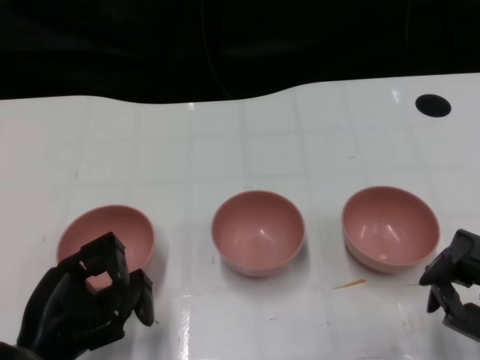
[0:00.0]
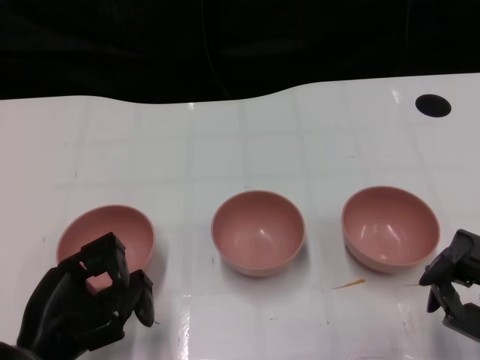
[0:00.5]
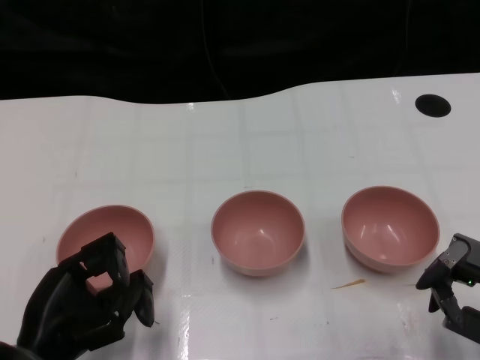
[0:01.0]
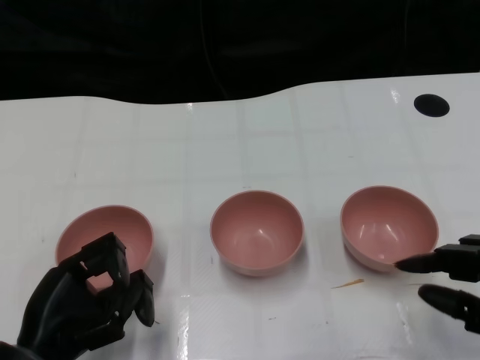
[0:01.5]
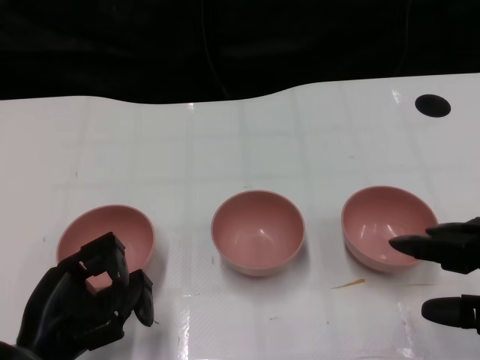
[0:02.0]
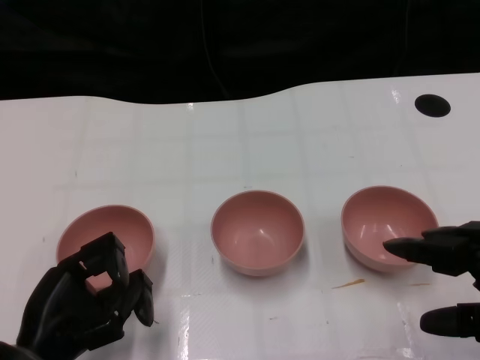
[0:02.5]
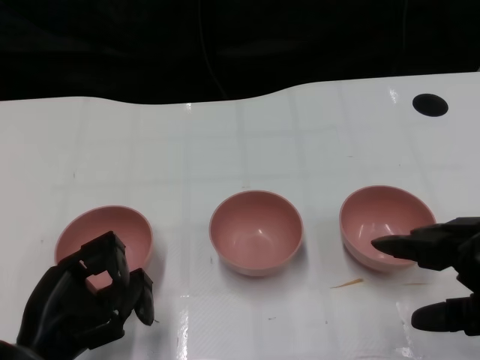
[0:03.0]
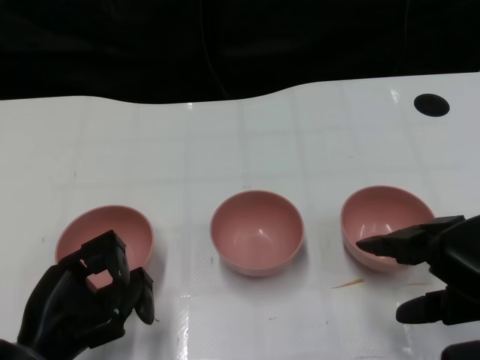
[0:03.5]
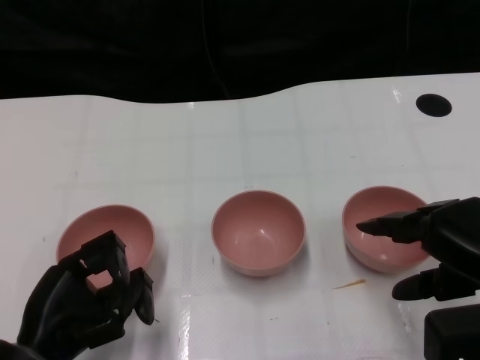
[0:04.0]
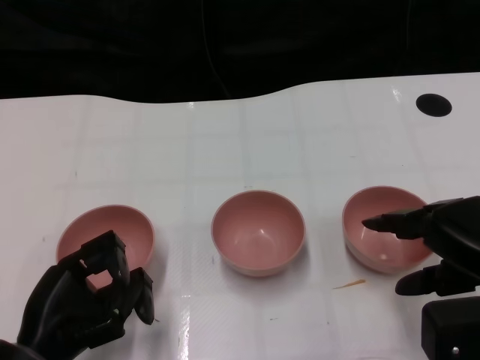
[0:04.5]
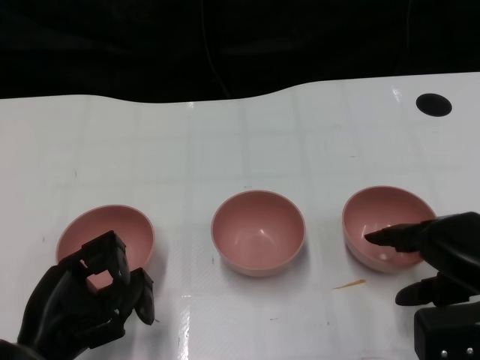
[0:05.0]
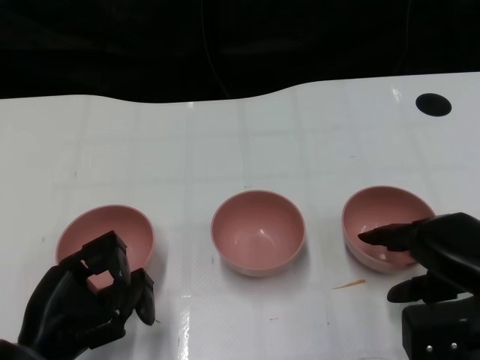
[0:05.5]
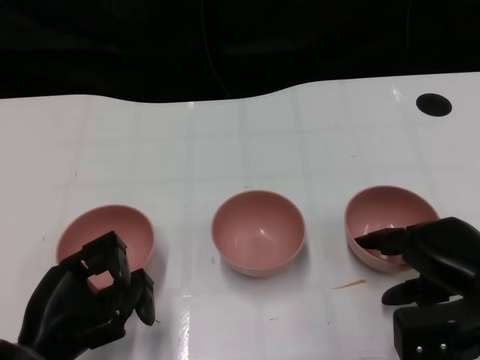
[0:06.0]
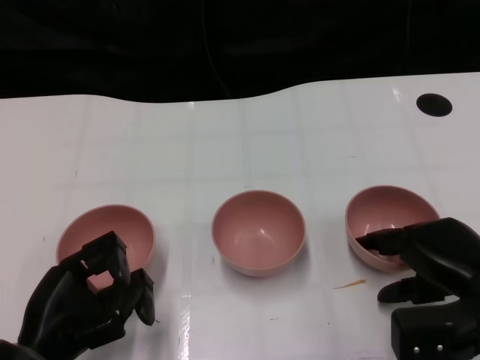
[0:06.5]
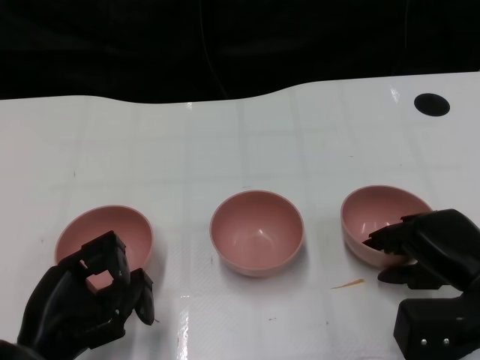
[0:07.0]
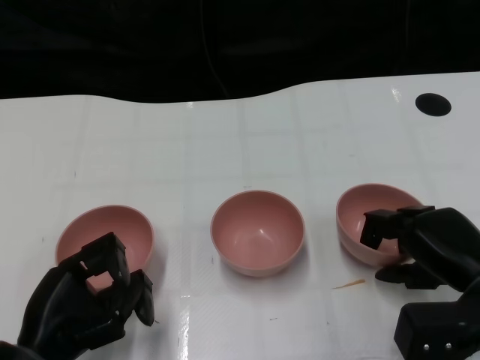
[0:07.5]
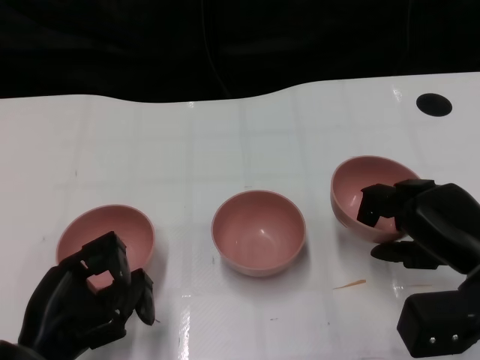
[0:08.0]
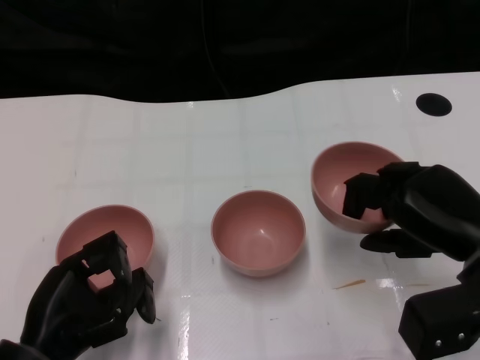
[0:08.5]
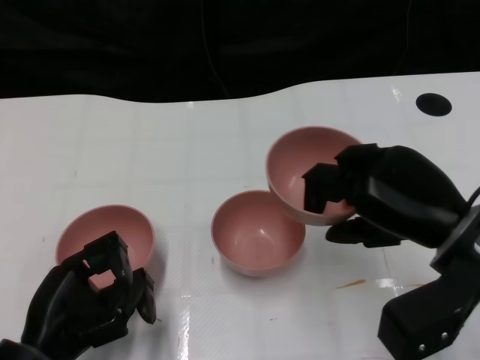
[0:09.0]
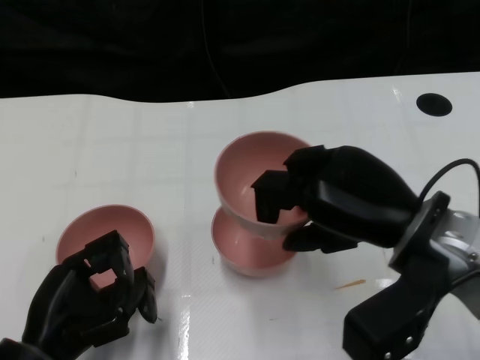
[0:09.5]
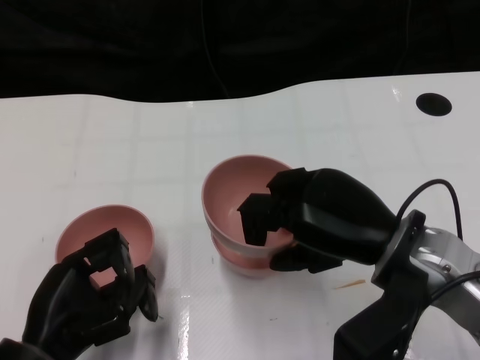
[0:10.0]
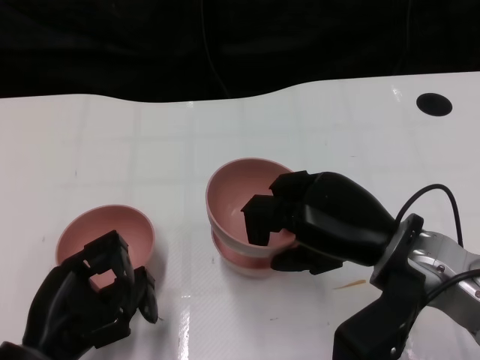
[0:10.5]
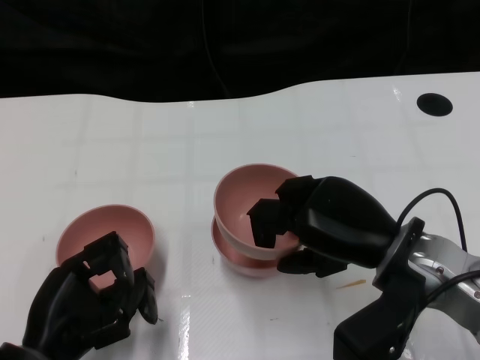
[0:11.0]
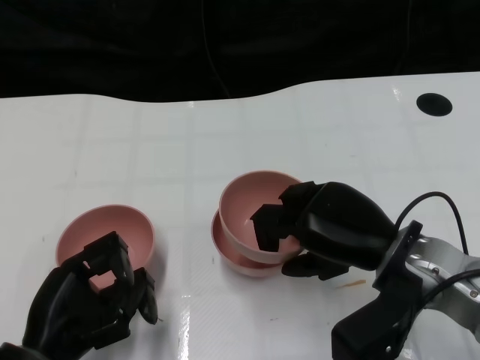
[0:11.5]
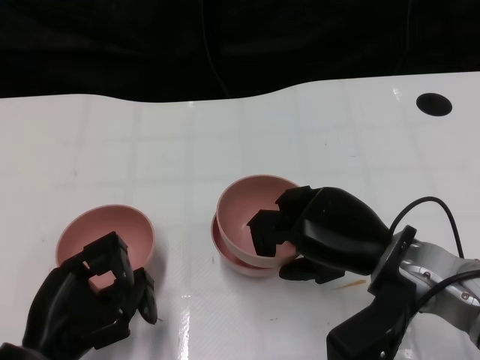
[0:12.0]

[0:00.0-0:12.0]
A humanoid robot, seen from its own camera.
Task of the whole recording: Pick up the bowl on one side of the table and place it on top of the middle bowl, then pick up the bowl on the other side of the table and place it on top of the middle bowls.
Step, 0:01.0 to 0:07.5: Grasp the bowl on the right with the right gripper.
0:02.0 to 0:04.0: The right hand shifts approximately 5 cm forward.
0:04.0 to 0:06.0: The right hand travels downward by about 5 cm.
0:08.0 to 0:10.0: The right hand shifts some 10 cm to the left and upward.
0:10.0 to 0:12.0: The hands move only a little.

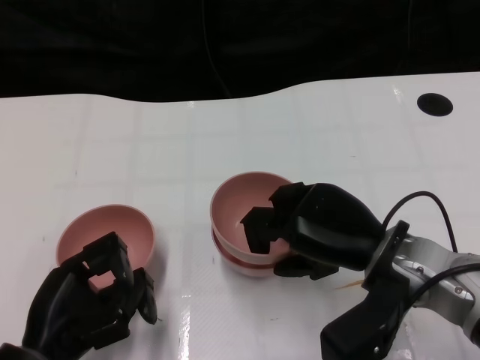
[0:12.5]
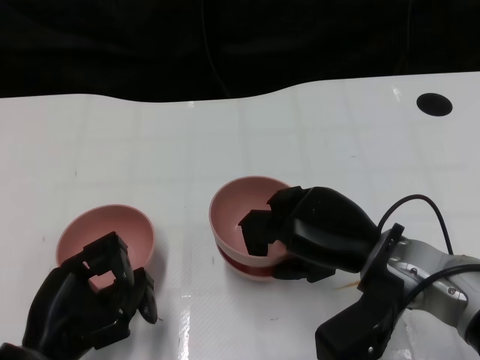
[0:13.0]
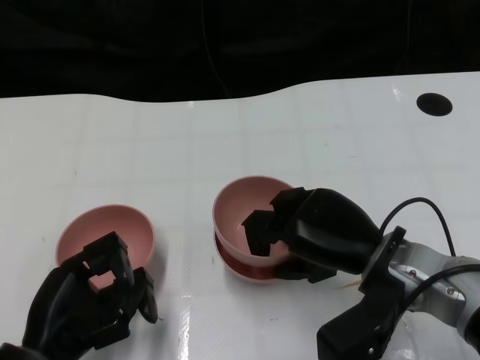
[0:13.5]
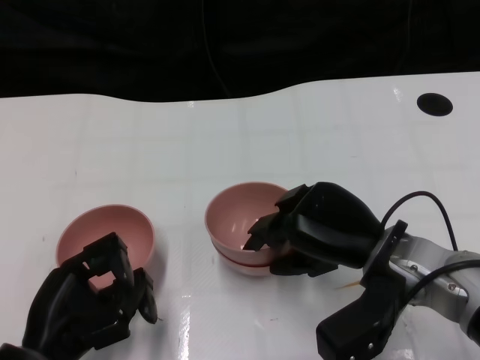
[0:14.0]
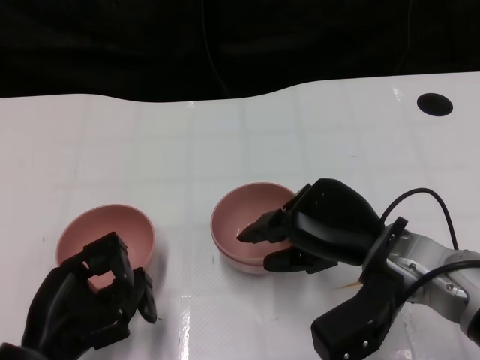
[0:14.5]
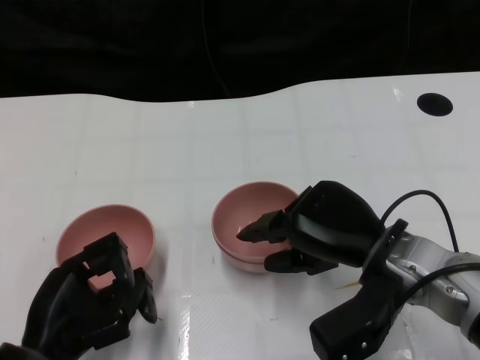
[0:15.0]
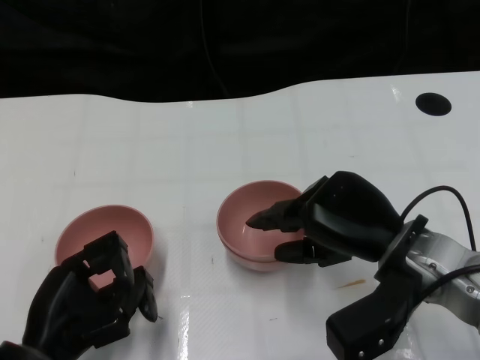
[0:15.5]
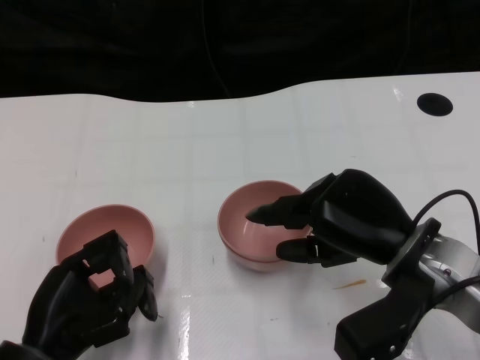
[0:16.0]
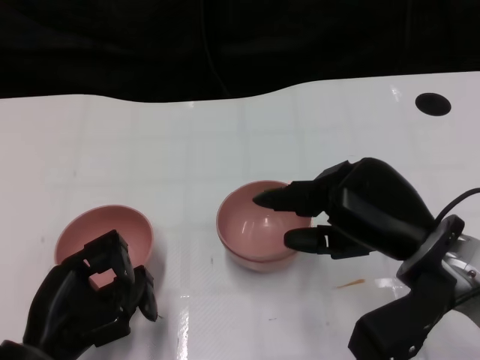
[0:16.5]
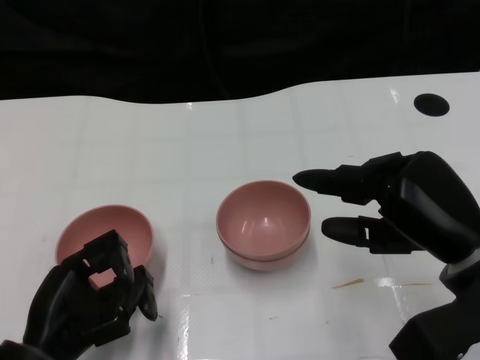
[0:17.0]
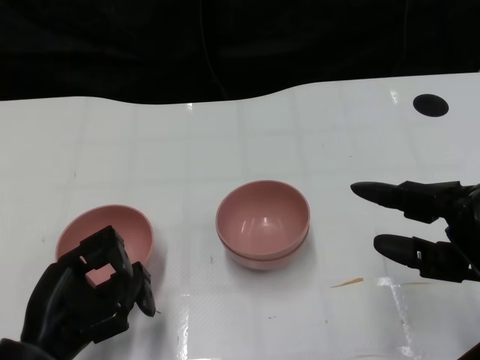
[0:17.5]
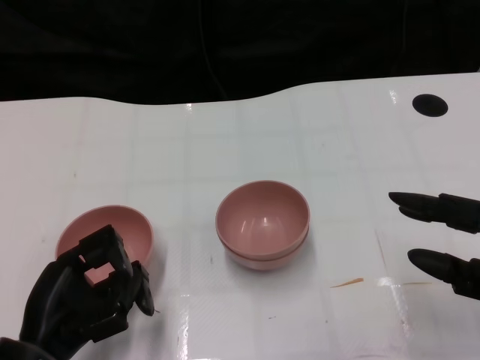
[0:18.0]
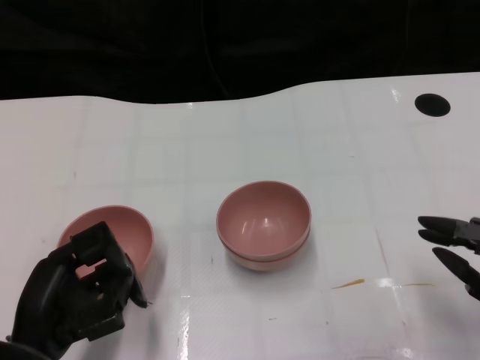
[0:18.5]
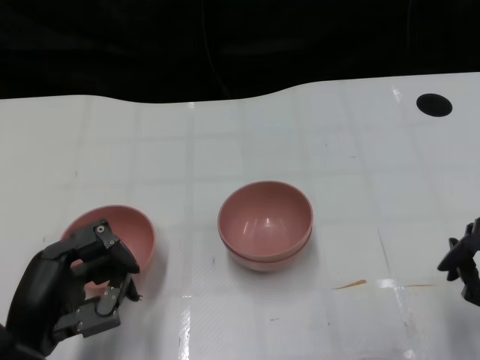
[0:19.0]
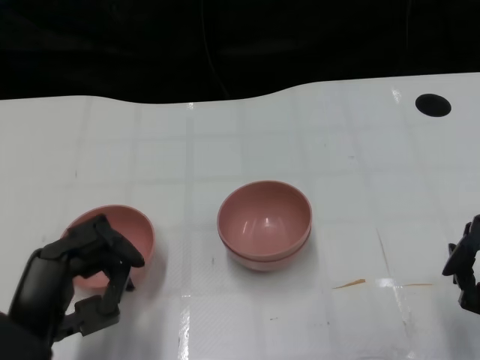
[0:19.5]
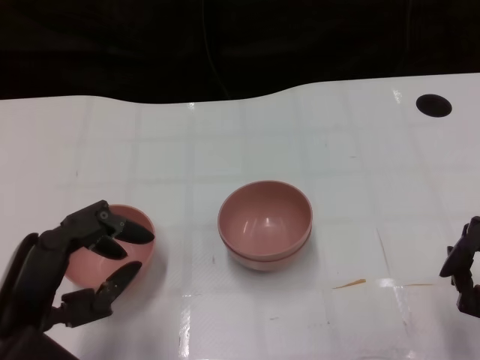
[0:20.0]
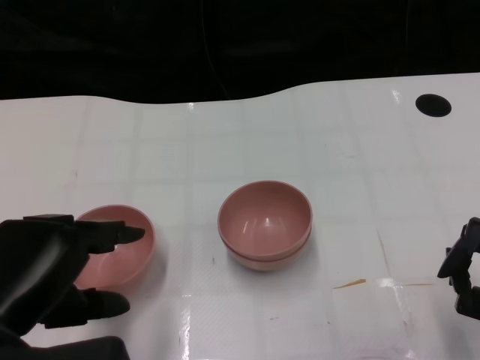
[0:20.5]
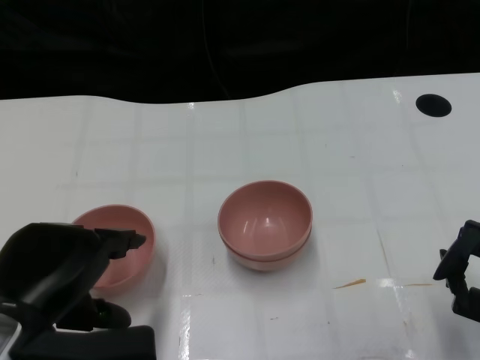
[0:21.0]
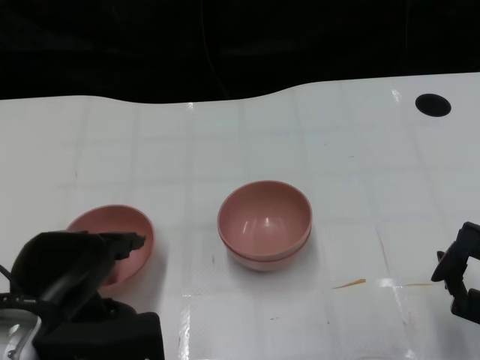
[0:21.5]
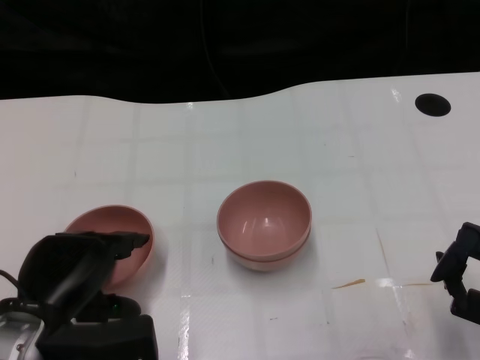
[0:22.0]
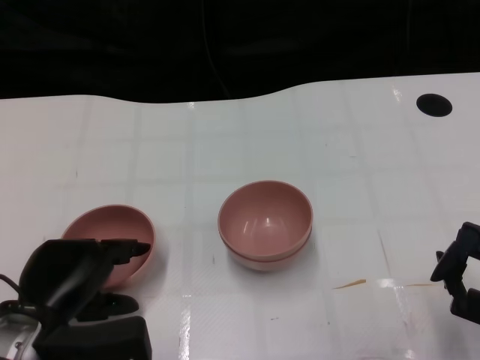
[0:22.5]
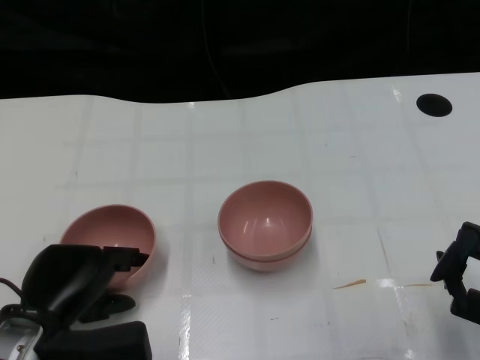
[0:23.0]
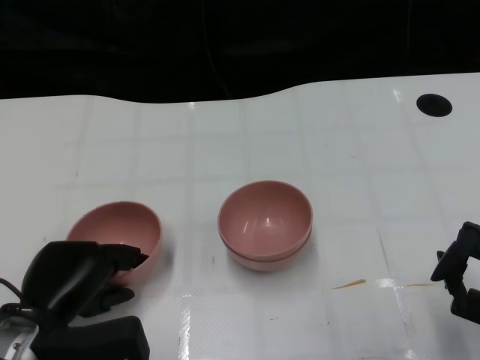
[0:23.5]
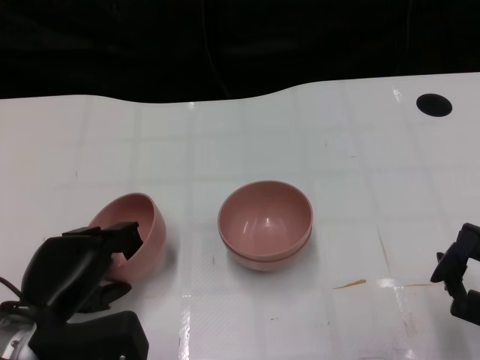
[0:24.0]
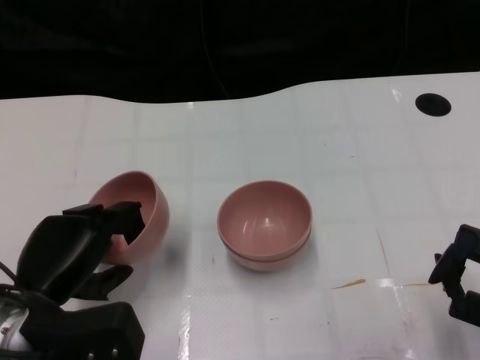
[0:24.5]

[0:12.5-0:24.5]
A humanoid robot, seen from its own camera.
Task of the whole recording: Pick up the bowl on one side of the table and place it on top of the middle bowl, then pick up the bowl on the other side of the table and place it on top of the middle bowls.
Step, 0:12.5 to 0:16.5: Place the bowl on the right onto the bowl in the middle with right gripper.
Step, 0:17.0 to 0:24.0: Grasp the bowl on the left with the left gripper.
0:12.5 to 0:14.5: The hands move only a little.
0:14.5 to 0:16.5: The right hand shifts by some 5 cm.
0:16.5 to 0:18.5: The right hand shifts roughly 15 cm to the right, backward and downward.
0:18.5 to 0:20.5: The left hand goes some 10 cm upward.
0:20.5 to 0:22.5: The left hand shifts about 10 cm downward and forward.
0:22.5 to 0:24.5: The hands make only small movements.

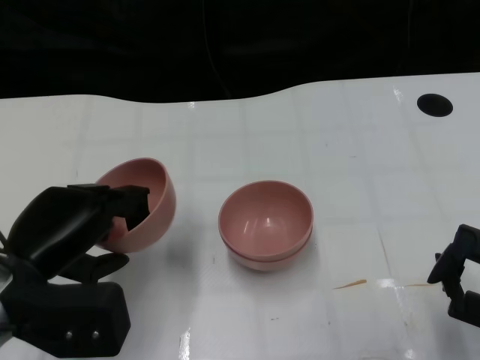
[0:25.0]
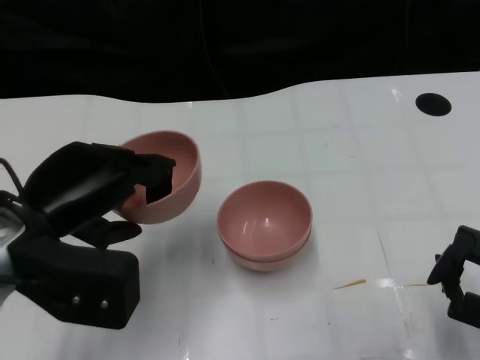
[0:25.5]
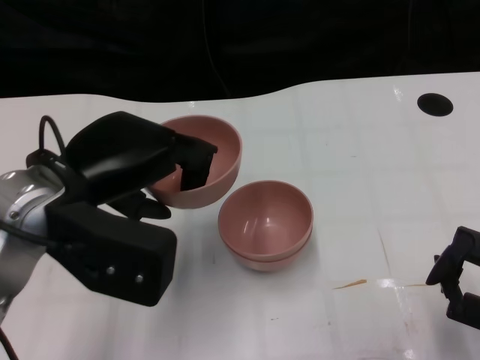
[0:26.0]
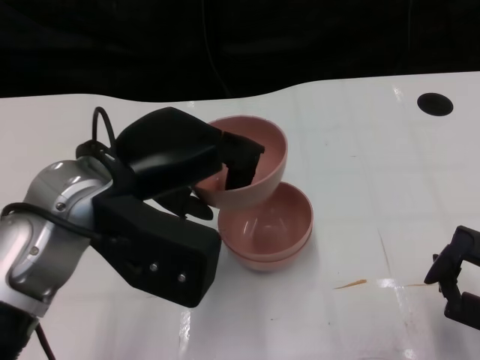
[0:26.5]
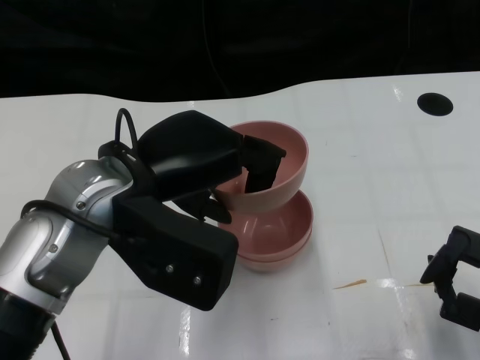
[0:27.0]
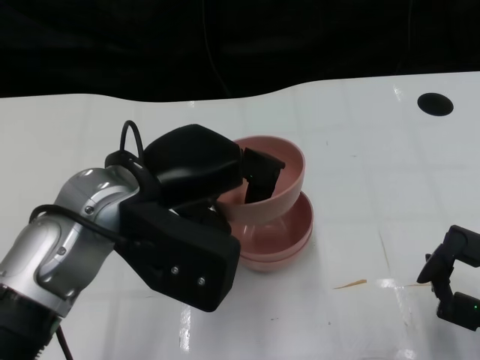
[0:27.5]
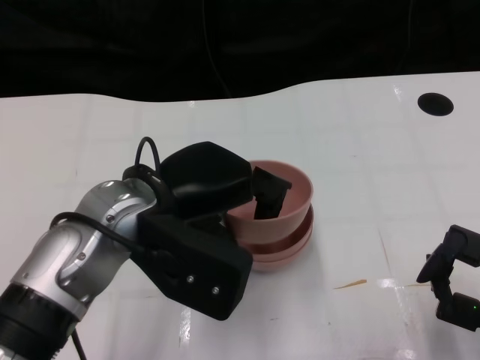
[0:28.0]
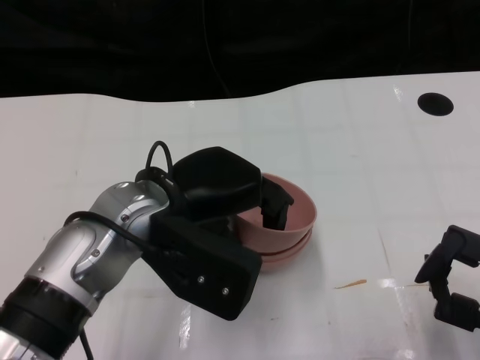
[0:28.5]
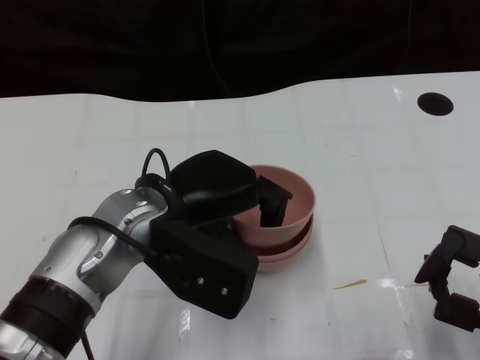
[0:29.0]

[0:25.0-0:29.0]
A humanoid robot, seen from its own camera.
Task of the whole recording: Pick up the bowl on one side of the table and place it on top of the middle bowl, then pick up the bowl on the other side of the table and place it on top of the middle bowls.
0:25.0 to 0:27.0: The left hand goes roughly 15 cm to the right and upward.
0:27.0 to 0:29.0: The left hand travels downward by about 5 cm.
